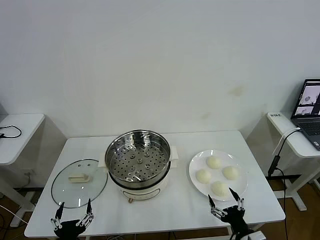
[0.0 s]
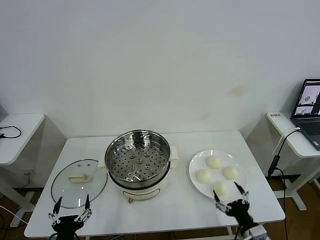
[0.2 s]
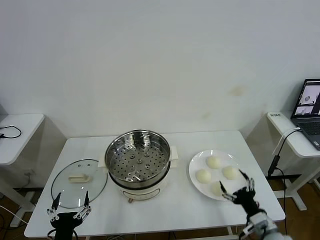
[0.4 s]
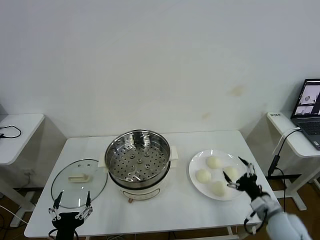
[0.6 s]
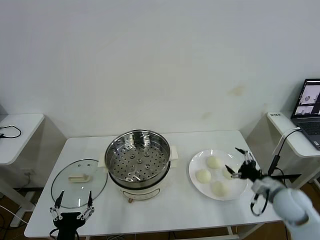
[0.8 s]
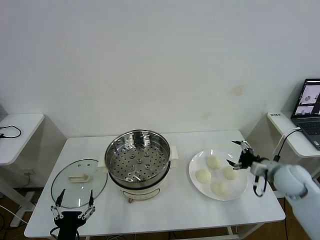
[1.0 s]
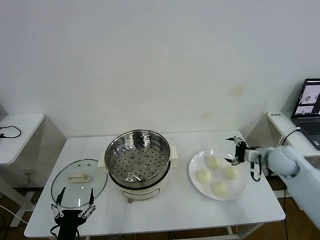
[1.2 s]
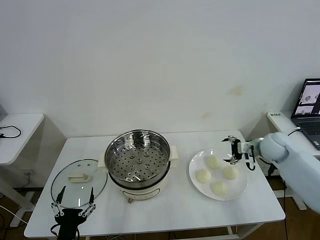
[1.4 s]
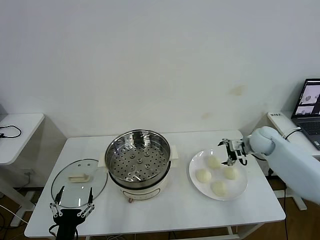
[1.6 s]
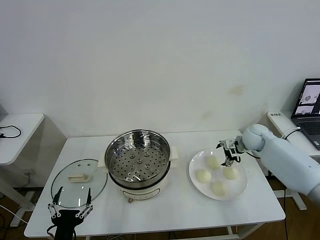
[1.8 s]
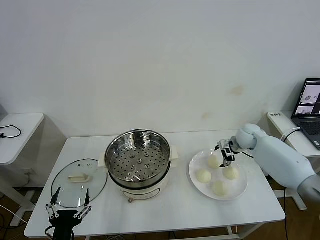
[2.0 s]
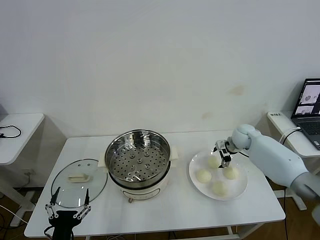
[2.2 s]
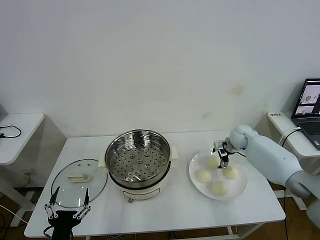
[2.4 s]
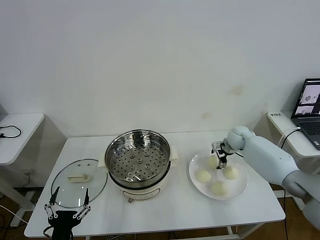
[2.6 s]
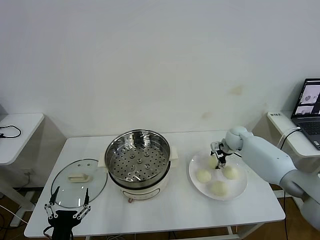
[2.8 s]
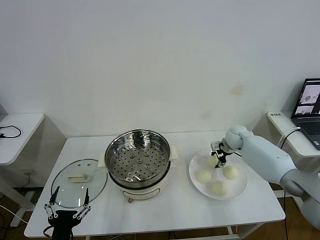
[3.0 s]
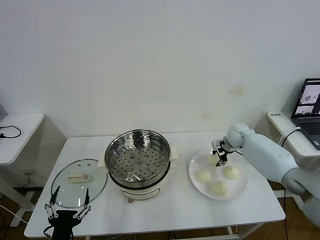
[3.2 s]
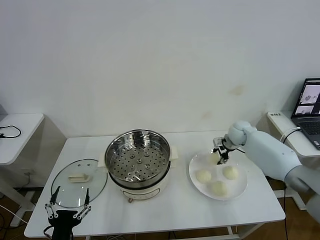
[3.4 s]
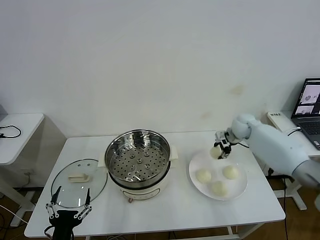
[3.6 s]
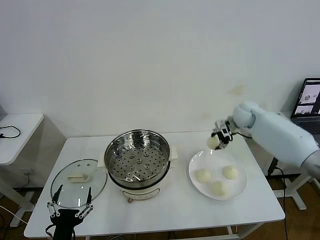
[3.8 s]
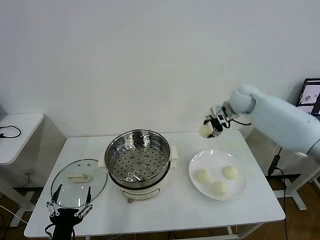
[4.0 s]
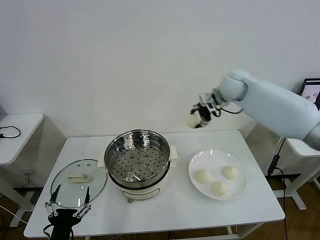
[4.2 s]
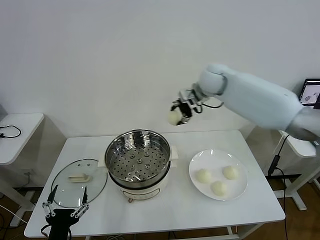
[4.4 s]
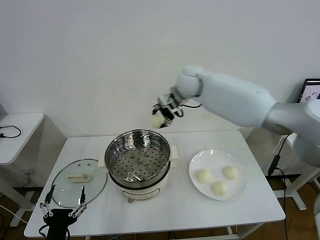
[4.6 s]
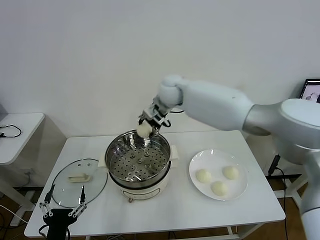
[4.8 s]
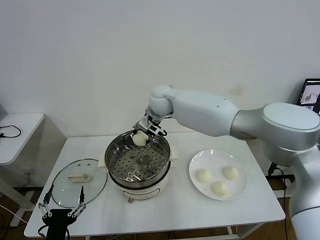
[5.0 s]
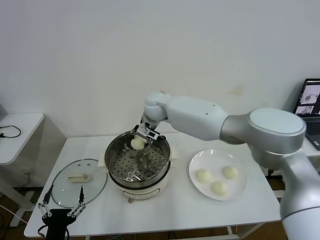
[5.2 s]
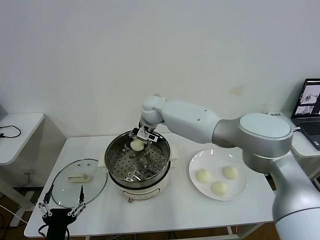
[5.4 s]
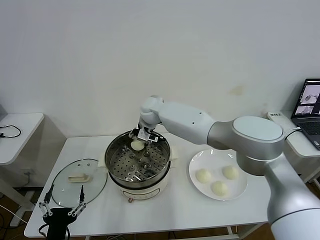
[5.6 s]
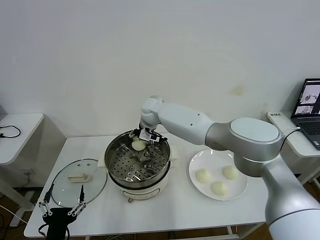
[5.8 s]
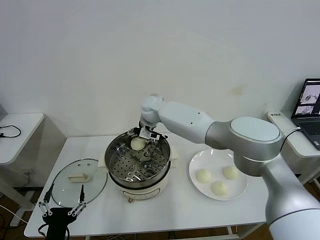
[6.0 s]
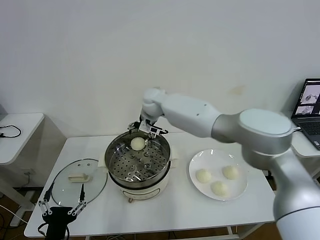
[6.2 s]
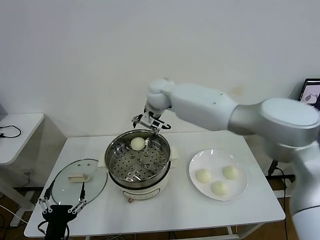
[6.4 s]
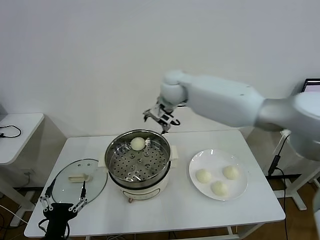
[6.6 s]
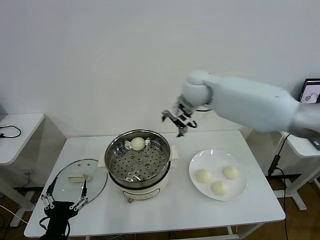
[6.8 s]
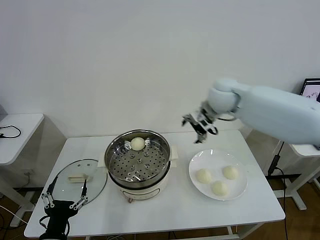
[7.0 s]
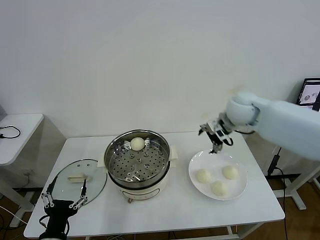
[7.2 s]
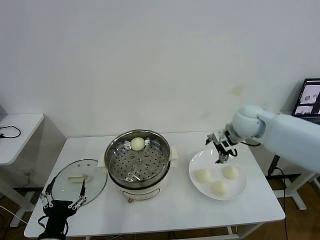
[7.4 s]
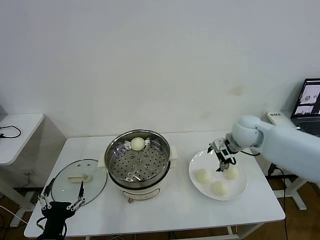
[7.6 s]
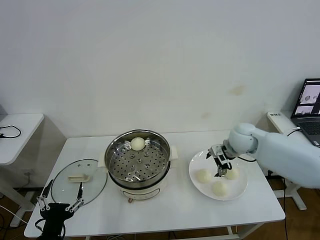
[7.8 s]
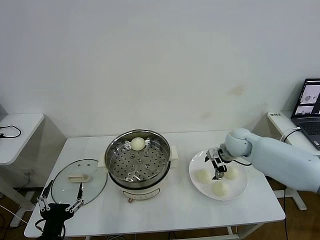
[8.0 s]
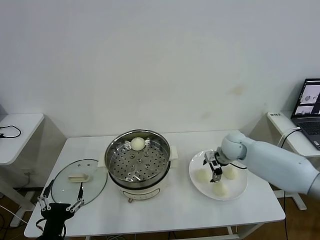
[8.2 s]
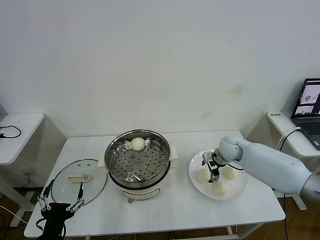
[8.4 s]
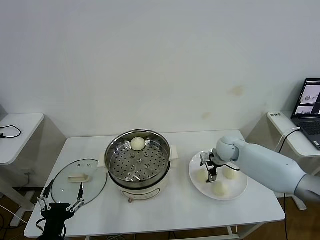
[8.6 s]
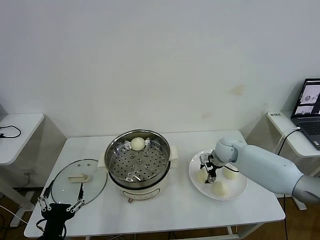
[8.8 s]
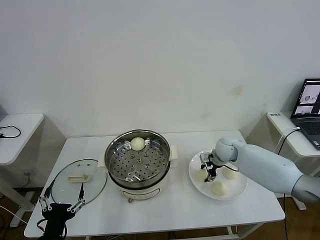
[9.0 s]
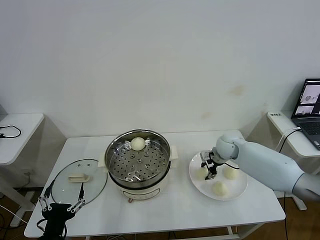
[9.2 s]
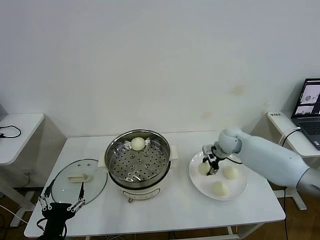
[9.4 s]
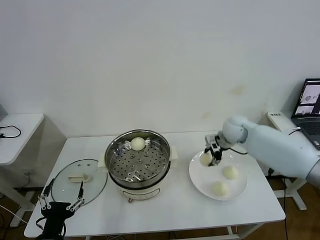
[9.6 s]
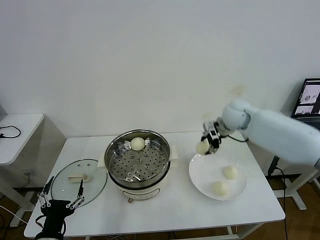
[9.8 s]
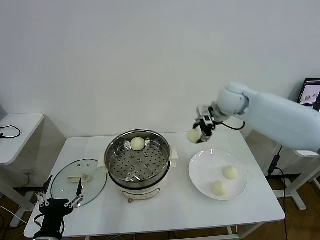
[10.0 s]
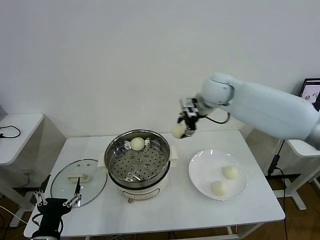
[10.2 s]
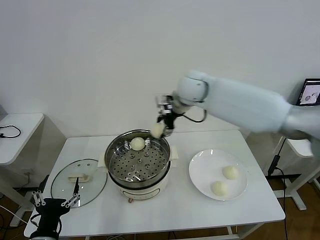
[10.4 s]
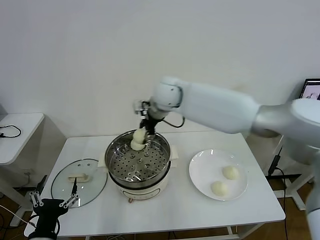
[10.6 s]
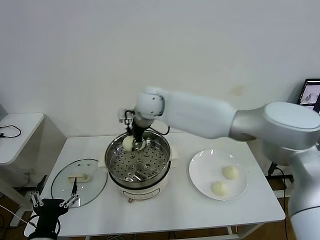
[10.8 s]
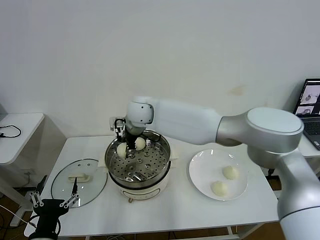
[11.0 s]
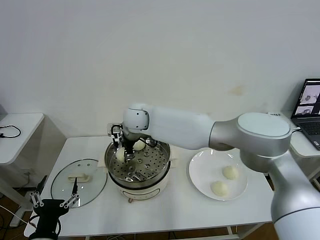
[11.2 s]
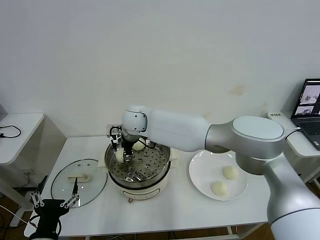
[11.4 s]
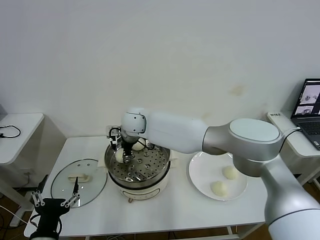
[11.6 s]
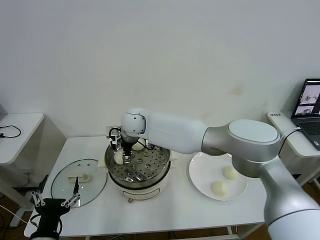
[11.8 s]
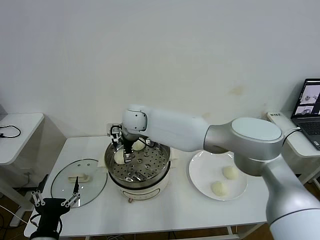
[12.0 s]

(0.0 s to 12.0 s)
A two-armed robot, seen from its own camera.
Task of the whole recording: take steamed baozi put them in steamer then cover it.
Step, 0.0 s - 2.8 s: Grasp the baozi in the plate with right gripper.
Step, 3.0 s - 5.8 s: Place the baozi on the steamer with right gripper.
Step, 6.0 s - 8.8 s: Grasp the baozi in the plate with right gripper.
Step, 9.2 s - 11.8 s: Place the baozi on the steamer with right gripper.
1.6 s - 3.0 s: The right gripper heads forward, downward and to the left, covering some 10 cm, and closes up.
3.0 s - 4.4 s: The right gripper shifts roughly 30 cm upward and to the left.
4.4 s - 6.0 s: The right gripper goes approximately 20 cm to the left and downward, and opens its fingers.
6.0 s - 7.6 s: The right gripper is displaced to the right by some 30 cm.
7.6 s - 9.0 s: The right gripper is displaced downward by some 15 cm, and closes up.
9.0 s - 10.4 s: The right gripper shifts some 30 cm upward and to the left.
10.4 s - 12.0 s: The right gripper travels to the left and downward by about 20 cm, and opens its fingers.

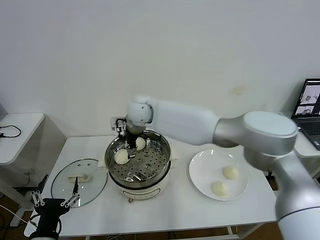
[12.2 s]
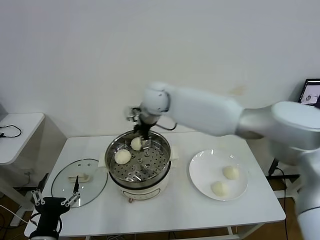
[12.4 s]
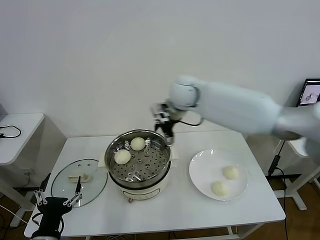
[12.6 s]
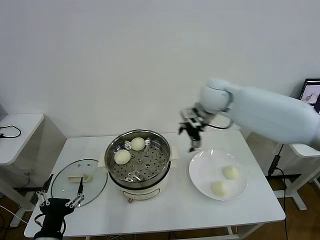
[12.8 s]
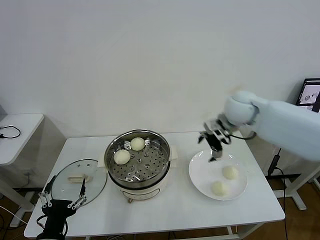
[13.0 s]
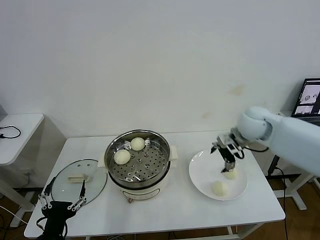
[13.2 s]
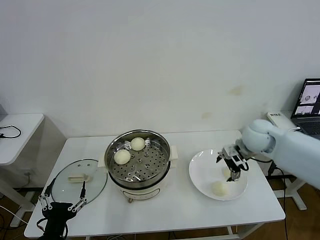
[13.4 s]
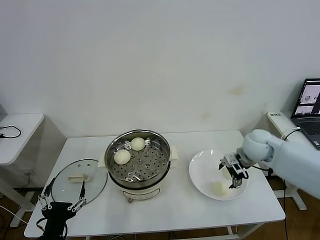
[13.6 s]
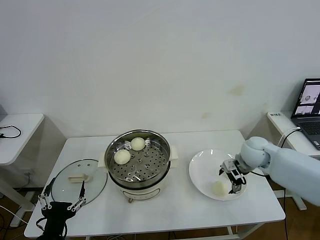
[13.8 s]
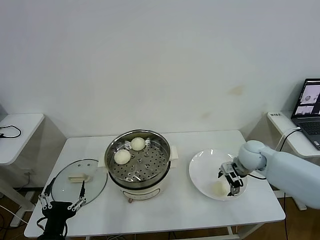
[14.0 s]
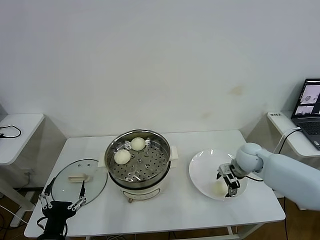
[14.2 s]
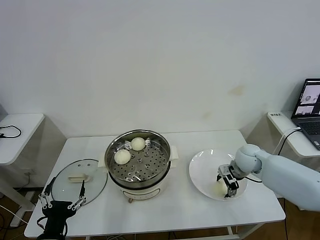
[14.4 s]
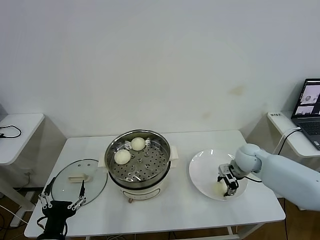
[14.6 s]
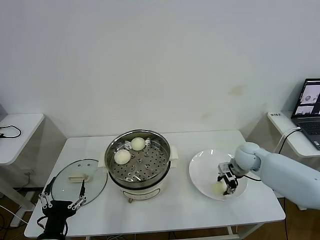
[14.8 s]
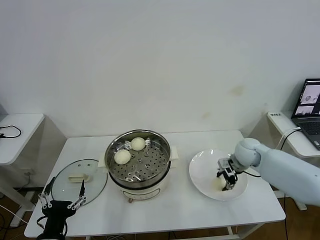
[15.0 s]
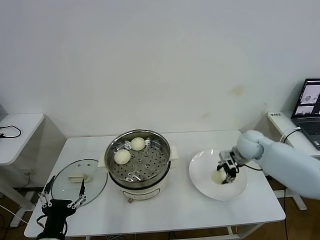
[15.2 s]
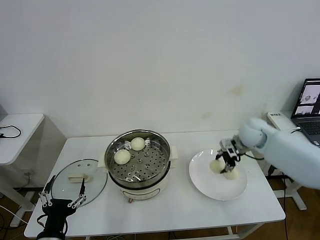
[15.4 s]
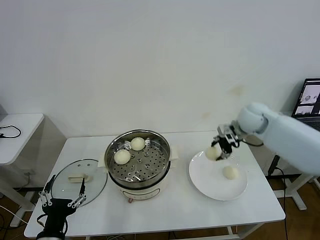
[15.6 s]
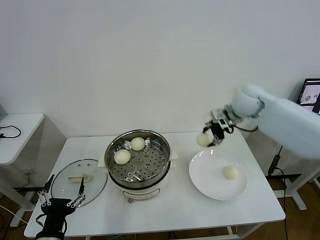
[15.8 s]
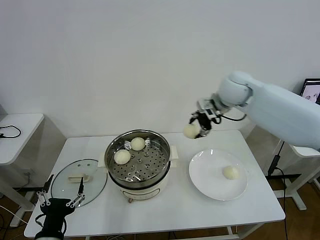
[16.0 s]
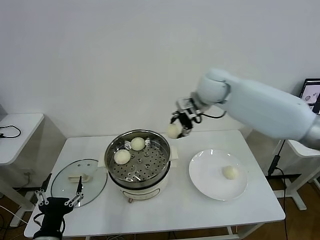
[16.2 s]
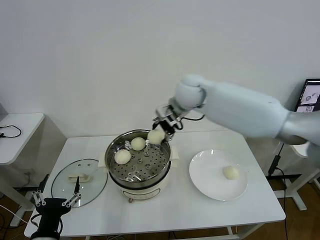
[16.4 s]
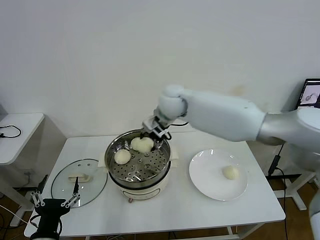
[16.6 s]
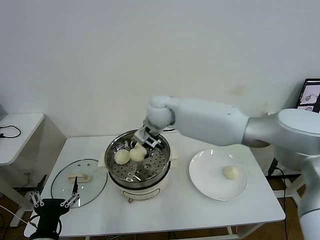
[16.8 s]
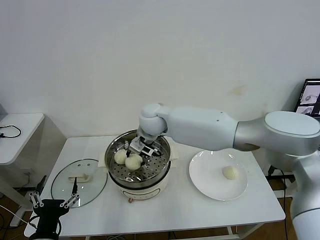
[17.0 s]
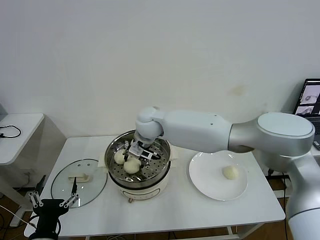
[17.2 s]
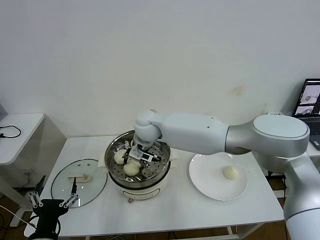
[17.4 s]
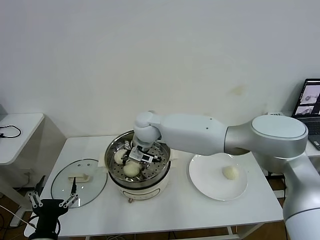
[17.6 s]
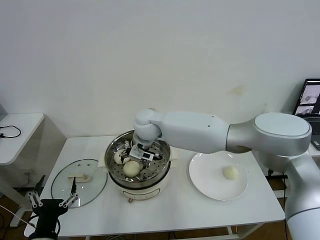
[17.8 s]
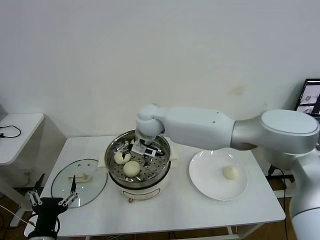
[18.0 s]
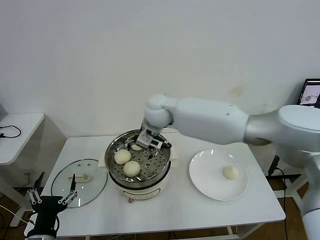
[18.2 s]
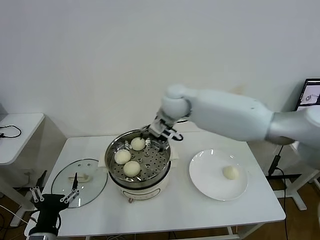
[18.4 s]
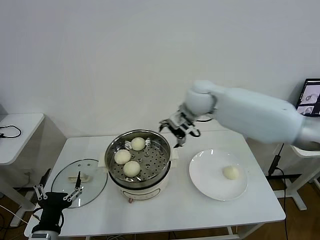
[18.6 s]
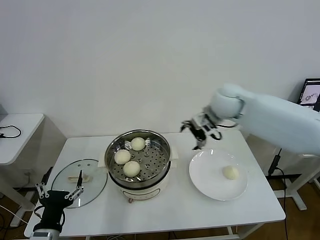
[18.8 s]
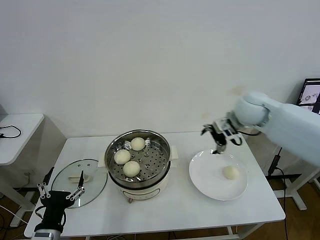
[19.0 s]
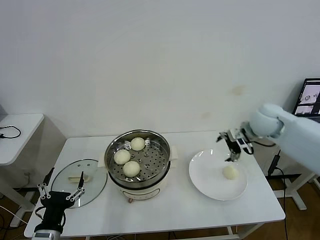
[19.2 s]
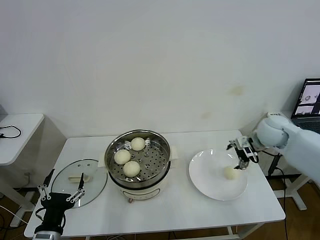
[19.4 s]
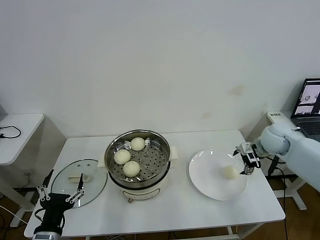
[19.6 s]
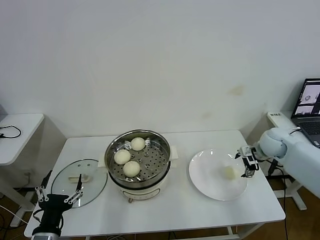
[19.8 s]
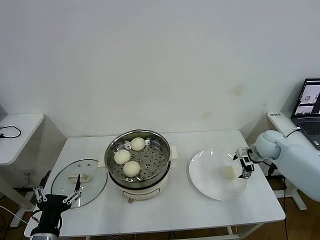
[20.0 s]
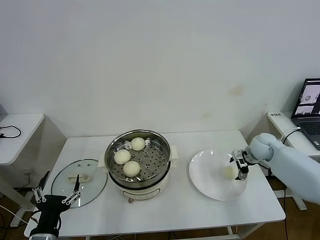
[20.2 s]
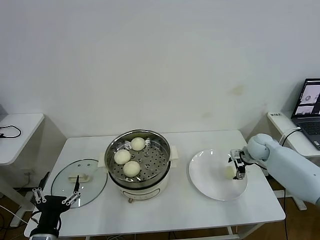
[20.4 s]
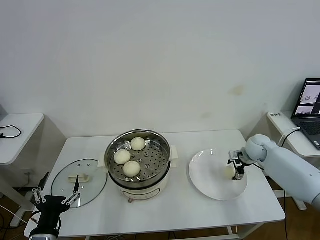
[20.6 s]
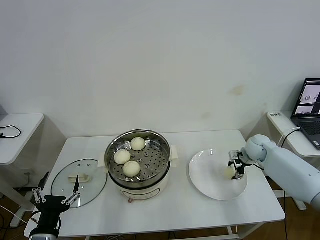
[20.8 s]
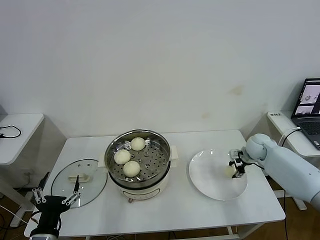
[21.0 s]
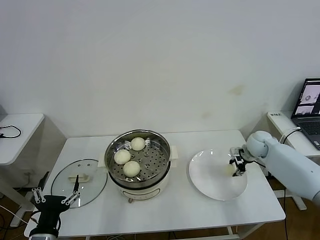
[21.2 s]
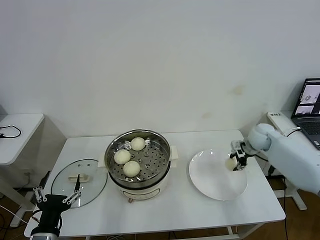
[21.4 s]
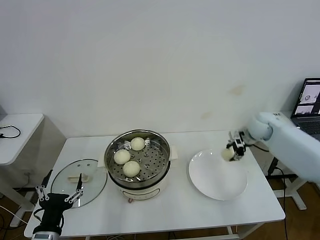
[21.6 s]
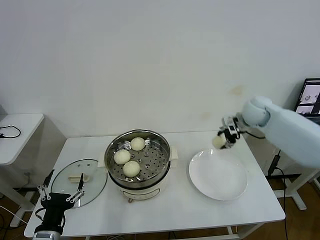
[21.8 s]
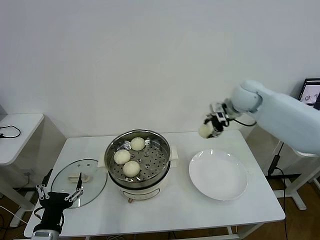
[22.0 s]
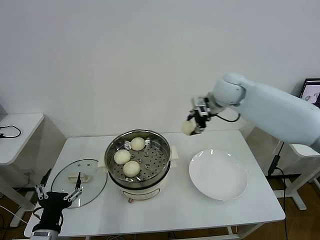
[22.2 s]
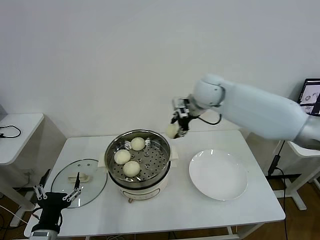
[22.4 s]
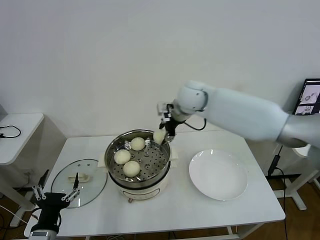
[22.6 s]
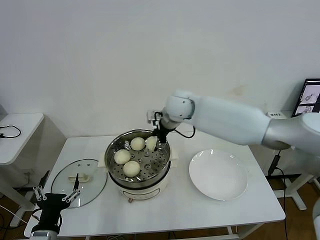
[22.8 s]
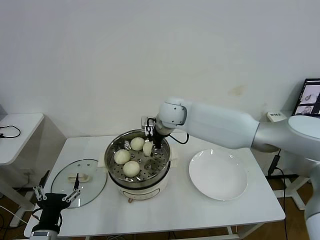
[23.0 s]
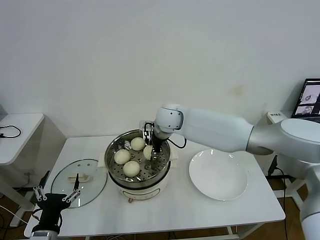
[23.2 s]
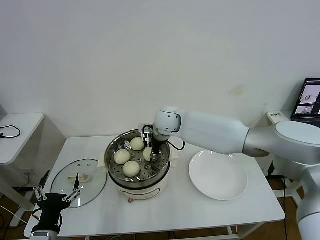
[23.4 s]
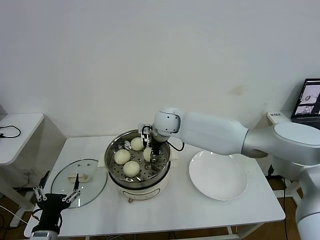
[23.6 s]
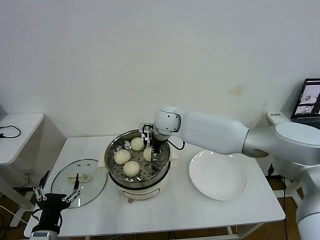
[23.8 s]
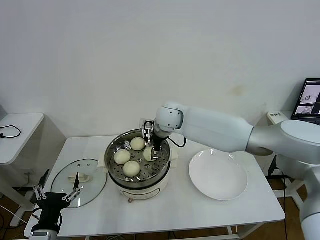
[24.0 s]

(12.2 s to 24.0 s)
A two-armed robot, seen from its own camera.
Task of the whole recording: take steamed baozi put them in steamer then cover it.
Step, 12.2 s - 14.6 s: Grasp the baozi in the plate with right gripper.
Step, 14.8 s - 17.6 s: Place the baozi on the steamer with right gripper.
Step, 17.8 s - 20.8 s: Grasp the baozi in the plate with right gripper.
Step, 21.0 s - 23.8 s: Place the baozi on the steamer with right gripper.
12.2 s - 13.6 s: The right gripper travels to the right by approximately 40 cm.
13.6 s - 15.2 s: The right gripper closes its fingers.
15.2 s - 16.6 s: The right gripper goes some 30 cm to the left and upward.
16.6 s - 18.2 s: The right gripper opens its fingers.
18.2 s - 19.6 s: The right gripper is displaced to the right by some 40 cm.
19.6 s - 21.0 s: The right gripper shifts some 10 cm downward, and closes.
21.0 s - 22.6 s: The right gripper travels to the left and upward by some 35 cm.
22.6 s - 24.0 s: The right gripper moves downward and to the left, some 10 cm, and opens.
